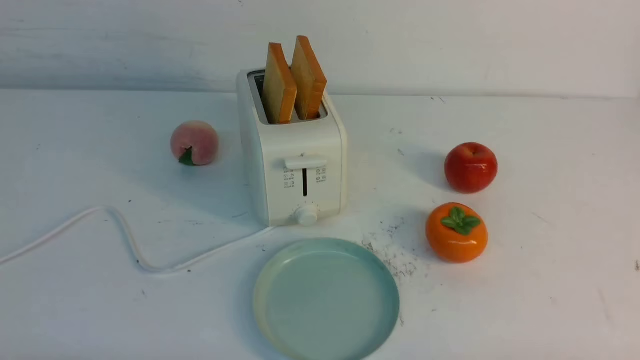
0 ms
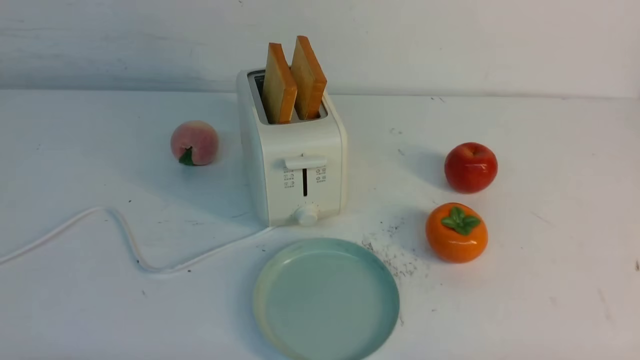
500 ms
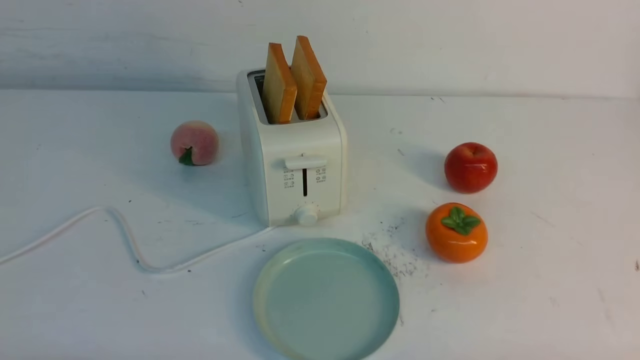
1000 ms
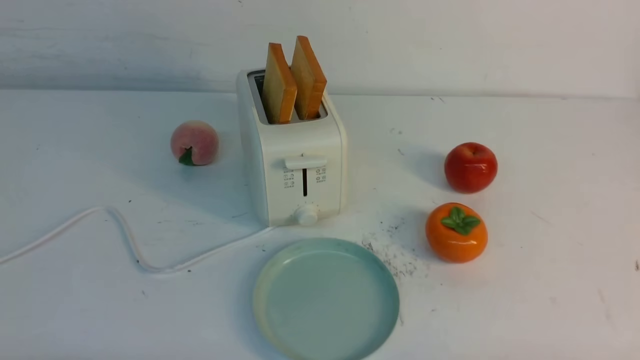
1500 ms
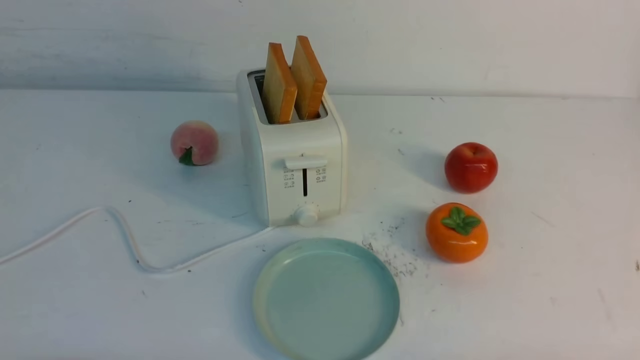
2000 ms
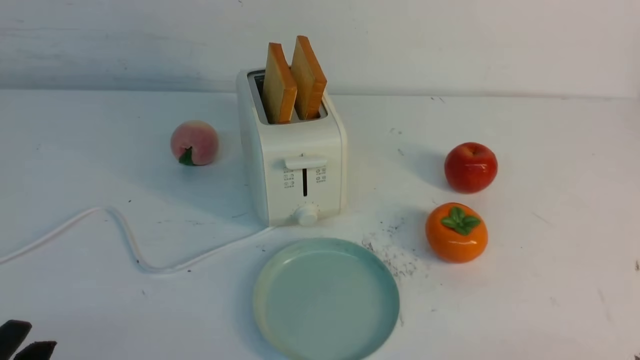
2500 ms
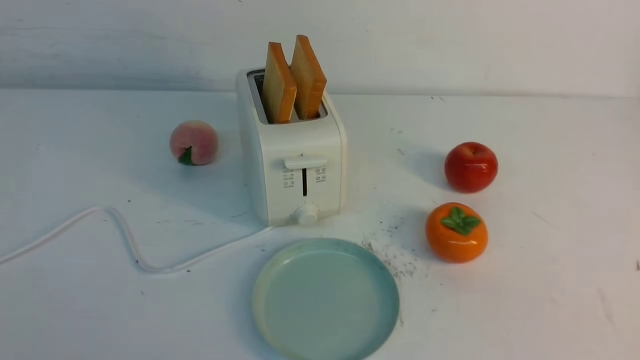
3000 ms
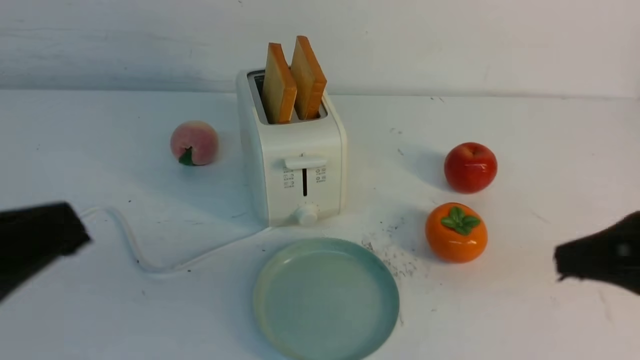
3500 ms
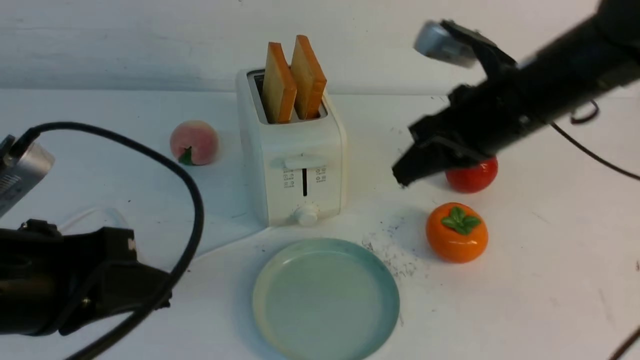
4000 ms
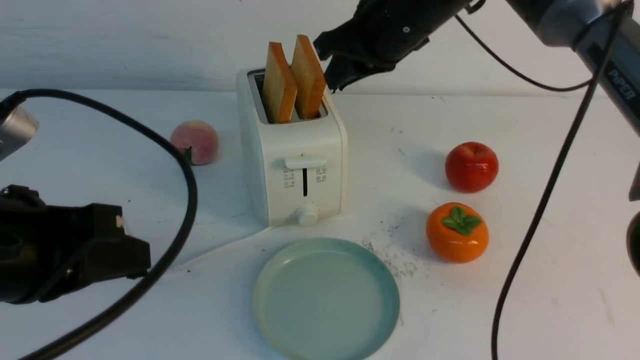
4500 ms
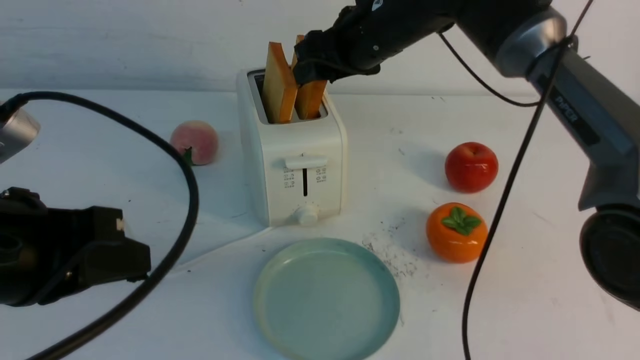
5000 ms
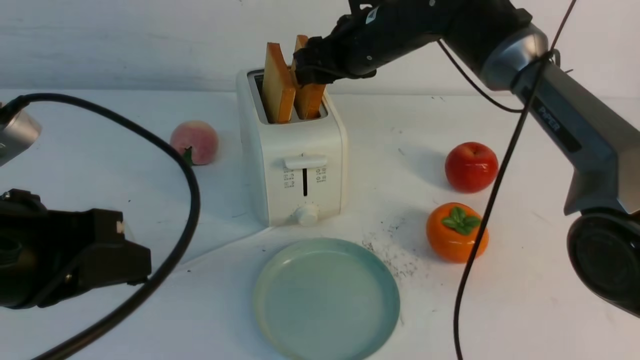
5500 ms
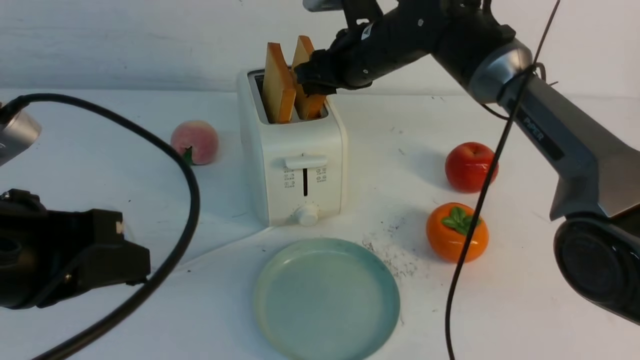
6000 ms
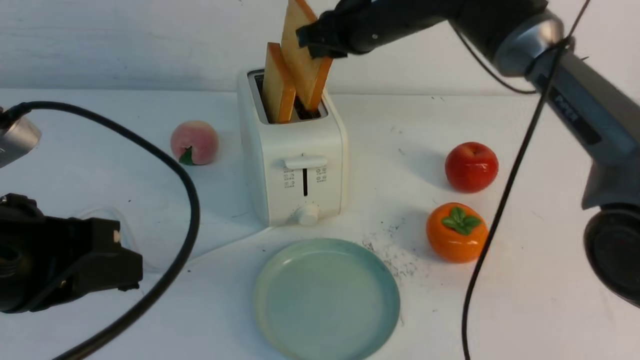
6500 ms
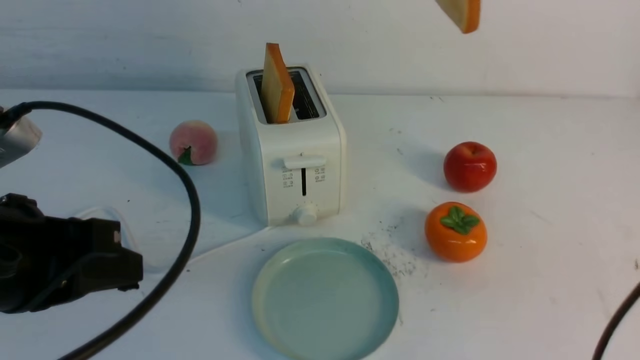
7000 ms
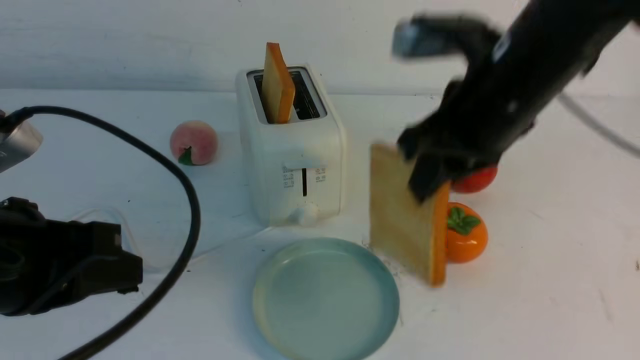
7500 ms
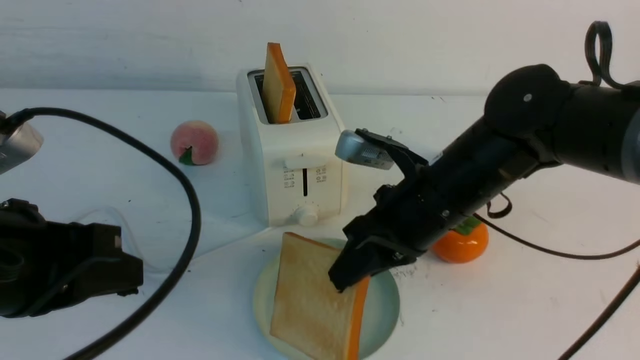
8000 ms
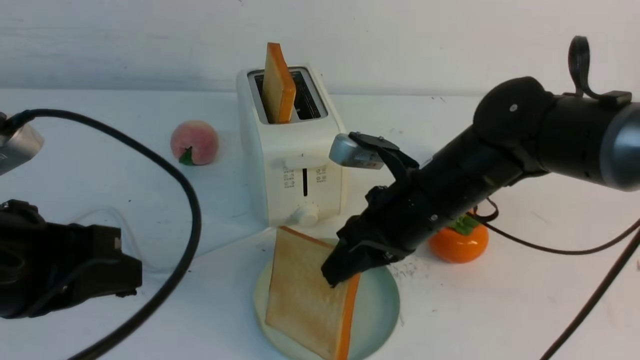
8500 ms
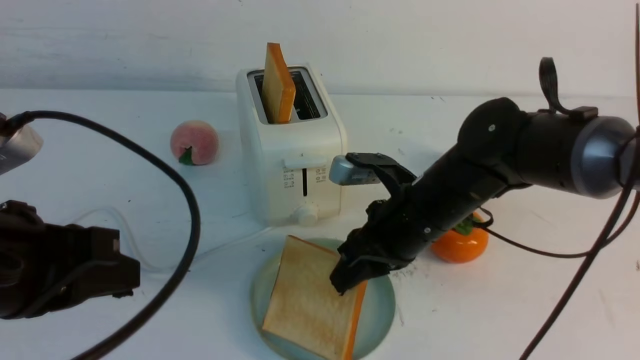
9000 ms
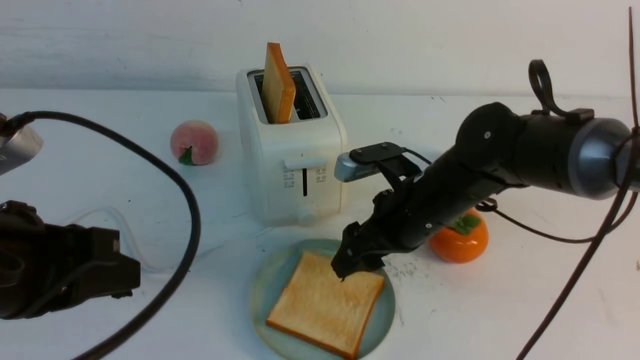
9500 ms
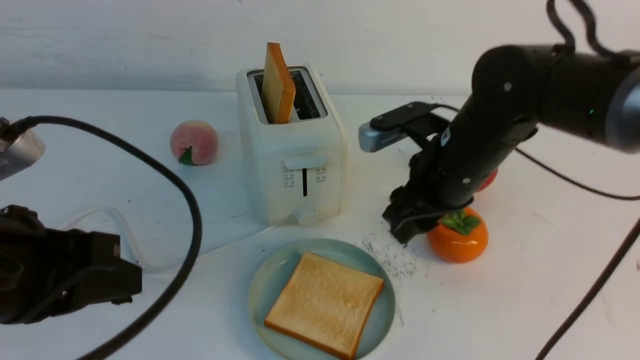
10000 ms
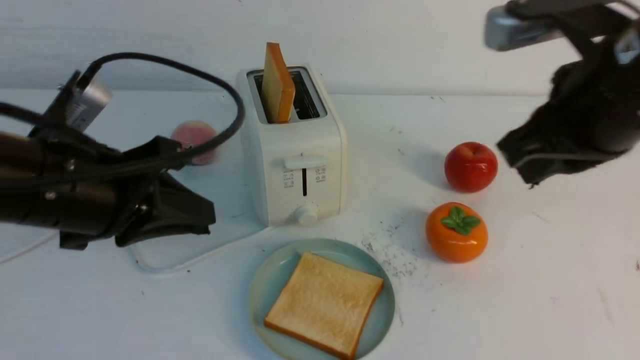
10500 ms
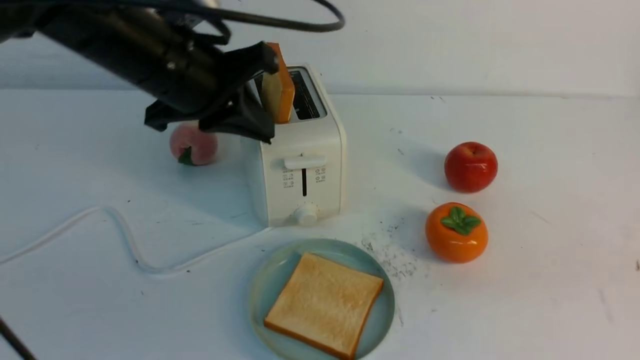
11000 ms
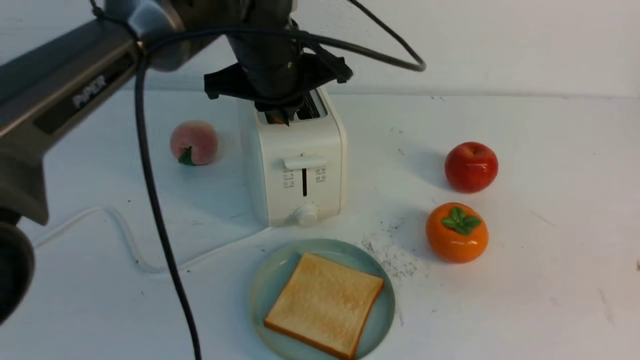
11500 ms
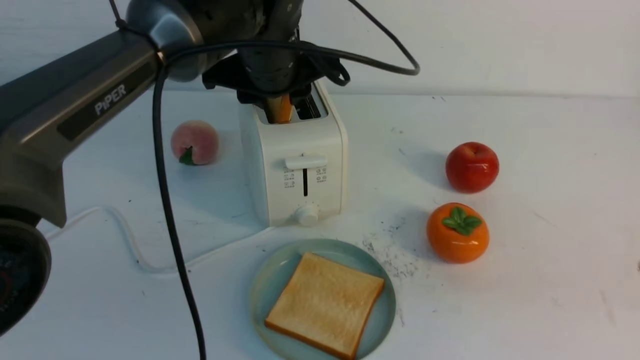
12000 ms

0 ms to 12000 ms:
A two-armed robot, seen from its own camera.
Task of the whole recording: take toasted bread from bread machine on white table place on plate.
Step, 0 ms to 6000 ms: use the right arm to take out a slice of bread.
Step, 7000 ms to 9500 ms: use the right arm to put a slice of bread into the plate.
2000 ms to 4000 ms: The left gripper travels upward and forward by roughly 20 cm, and closes; the right gripper is displaced forward, upward and to the left by about 35 cm, and closes its fingers.
4000 ms to 6000 ms: The right gripper heads forward and to the left, covering roughly 15 cm, and opens its fingers.
6000 ms to 8000 ms: The right gripper shifts approximately 20 cm backward, and travels upward and back again, roughly 15 cm each way.
8000 ms to 10000 ms: The right gripper opens up.
10000 ms to 12000 ms: The right gripper is displaced backward and to the right by roughly 25 cm, and closes up, while the left gripper goes roughly 30 cm forward and to the right, and opens.

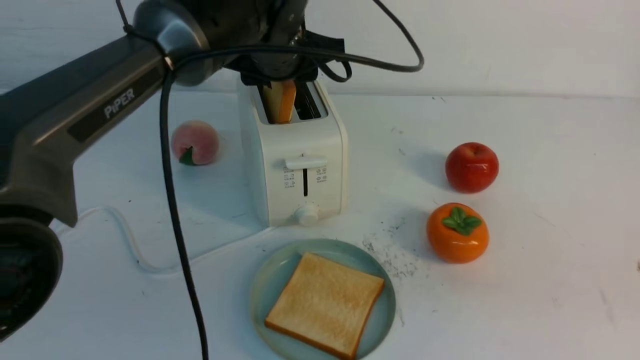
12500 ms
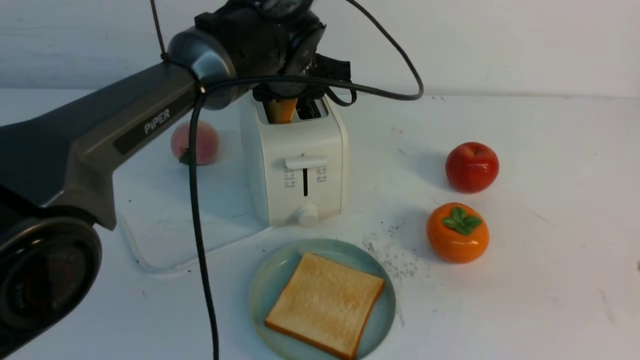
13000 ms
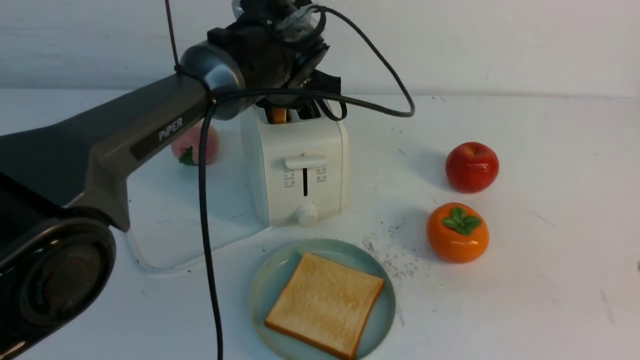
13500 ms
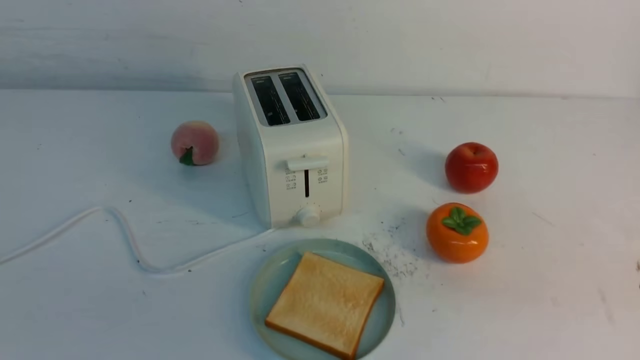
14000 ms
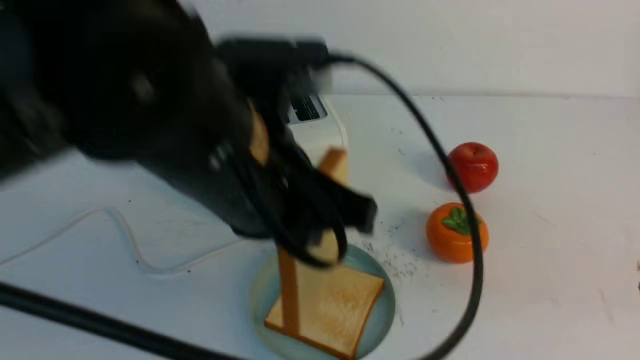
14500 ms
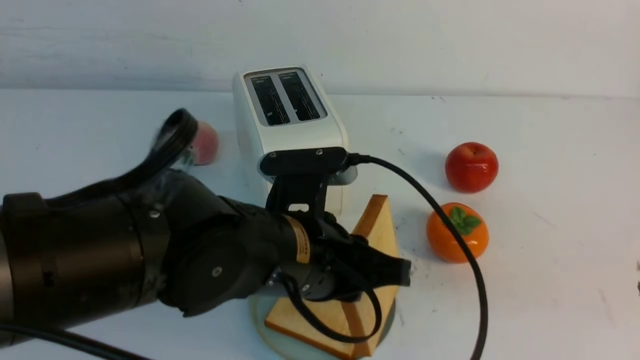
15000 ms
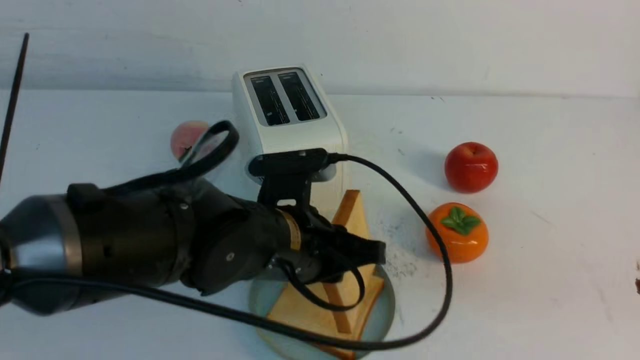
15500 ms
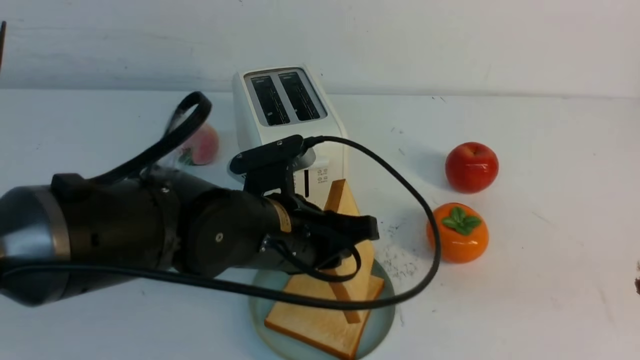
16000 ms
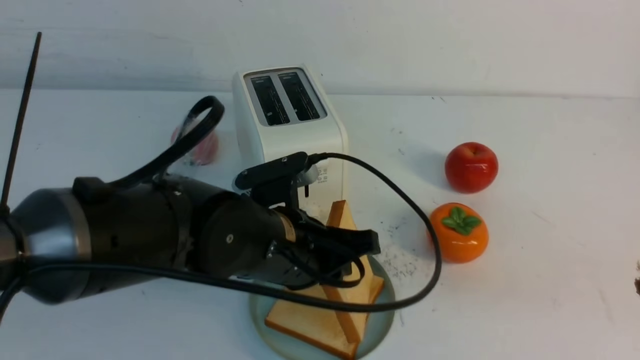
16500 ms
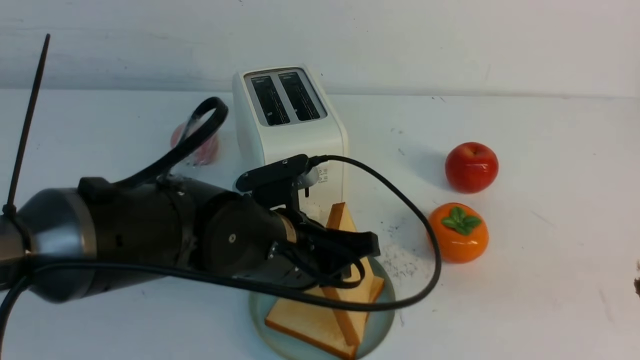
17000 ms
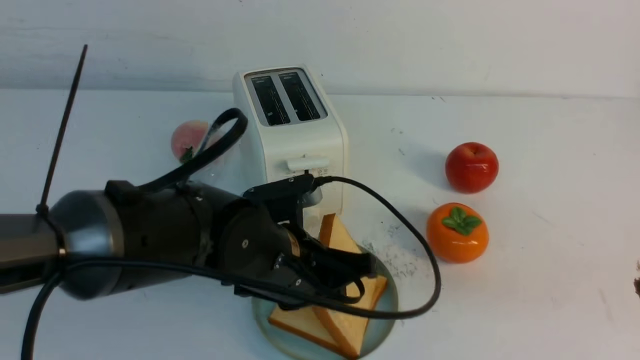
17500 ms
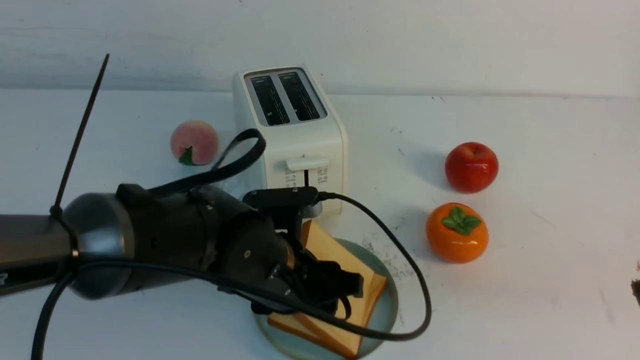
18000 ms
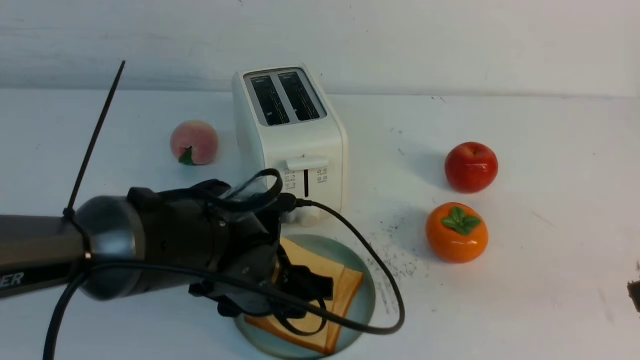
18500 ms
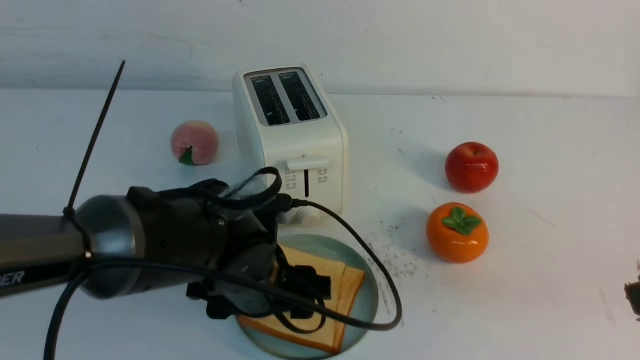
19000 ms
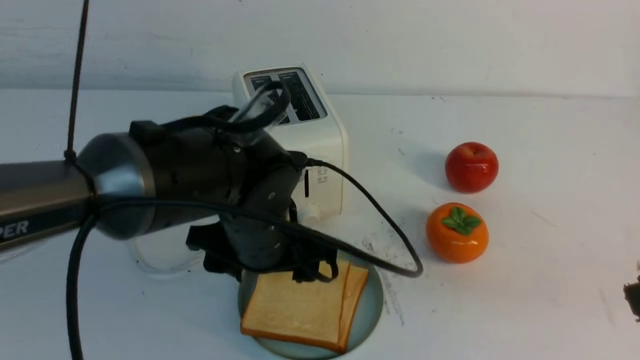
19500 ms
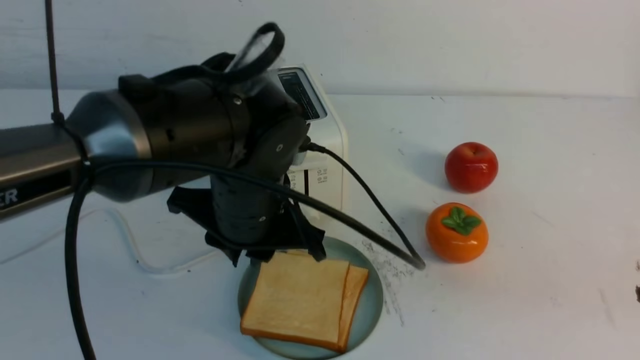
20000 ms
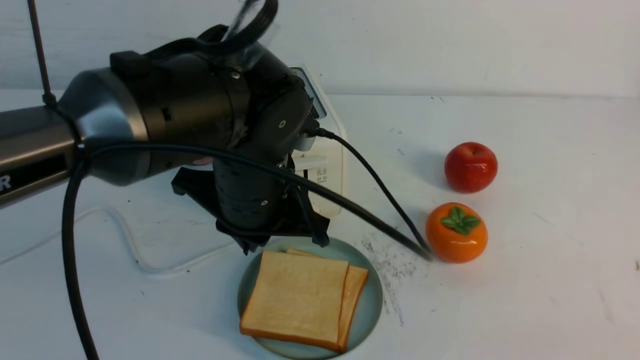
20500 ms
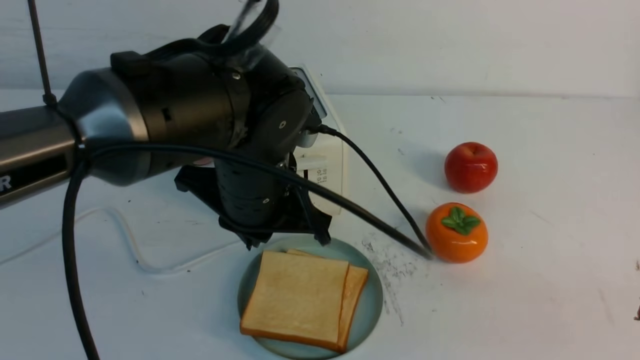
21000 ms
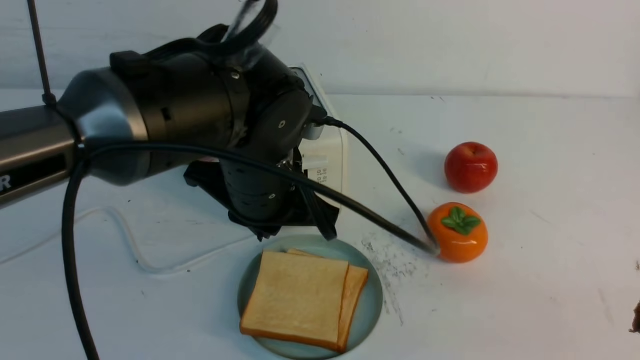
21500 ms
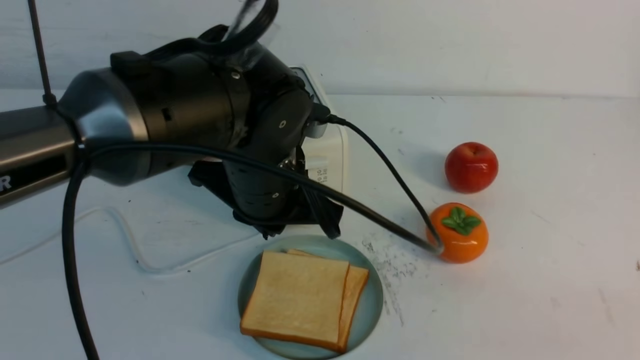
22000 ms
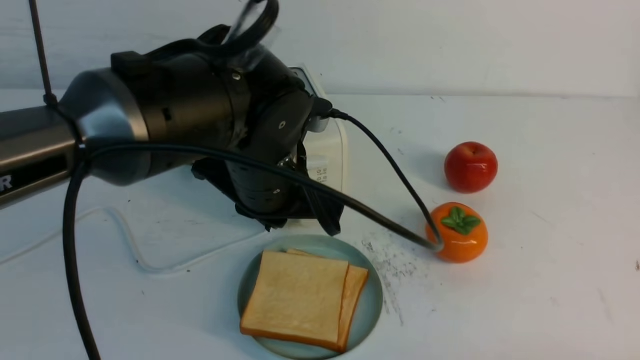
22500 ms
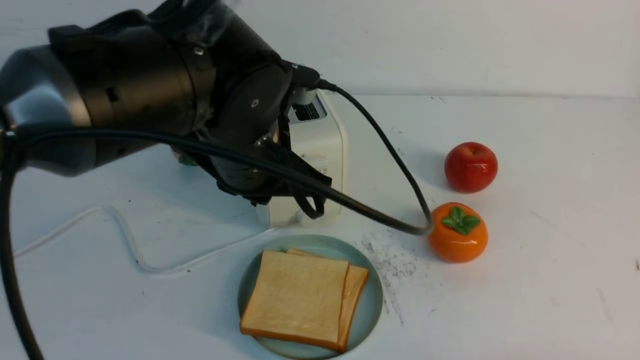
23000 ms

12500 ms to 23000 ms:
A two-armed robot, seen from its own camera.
Task of the whole recording: take toasted bread from bread machine on white table place on plate.
Step, 14000 ms to 20000 ms: use the left arm to put a slice of bread into the empty plate.
12500 ms to 14500 ms: The left gripper heads backward, covering roughly 20 cm, and closes up.
14500 ms to 16500 ms: The left gripper moves downward, approximately 15 cm.
16500 ms to 19000 ms: The left gripper opens.
19000 ms to 21000 ms: The right gripper is displaced downward and backward by roughly 10 cm; the left gripper shifts roughly 10 cm upward, and closes up.
21000 ms to 23000 ms: The right gripper moves downward, approximately 10 cm.
